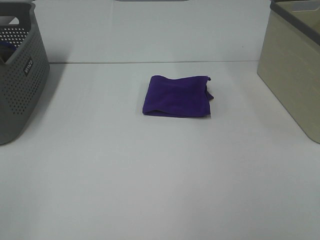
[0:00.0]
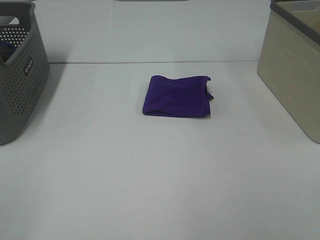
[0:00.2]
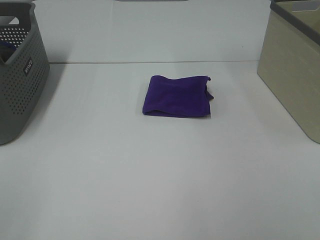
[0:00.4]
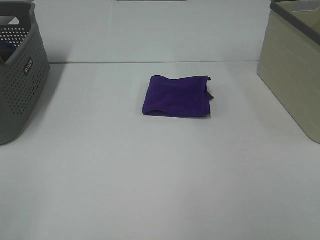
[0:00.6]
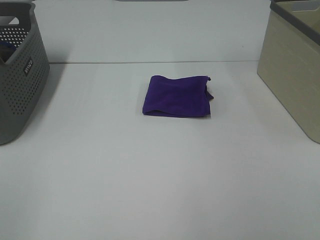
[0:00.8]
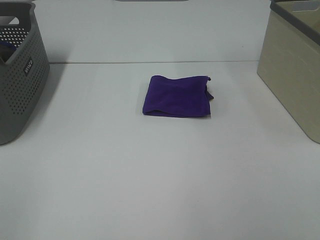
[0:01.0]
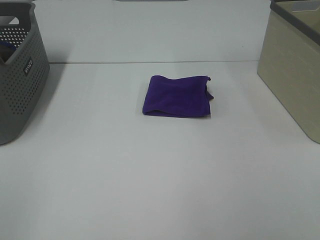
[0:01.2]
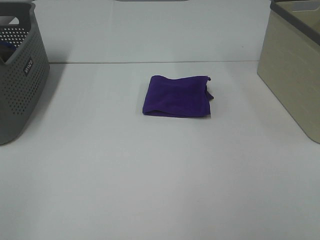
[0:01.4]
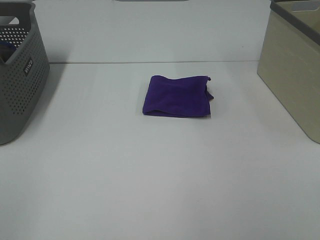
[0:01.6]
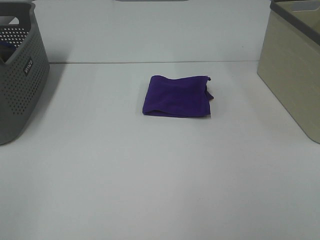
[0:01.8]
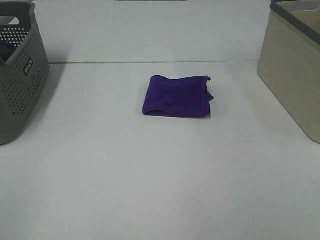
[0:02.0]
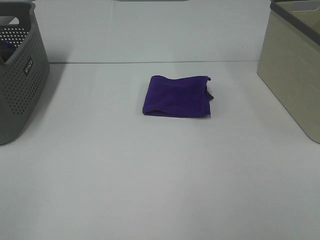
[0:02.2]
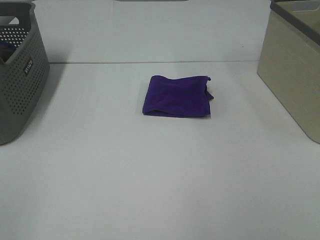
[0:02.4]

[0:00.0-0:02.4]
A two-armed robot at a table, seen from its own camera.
Task of the whole recording: Fold towels.
0:01.2 to 0:02.4: Both grippers stay put.

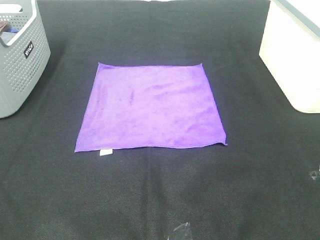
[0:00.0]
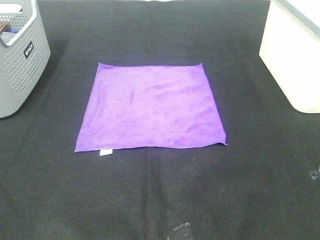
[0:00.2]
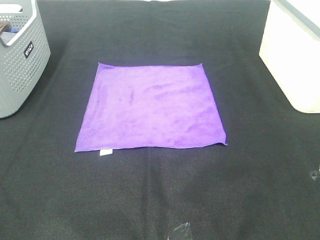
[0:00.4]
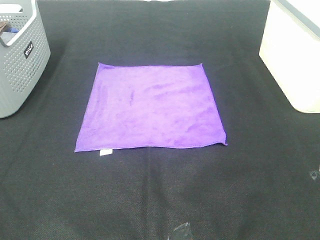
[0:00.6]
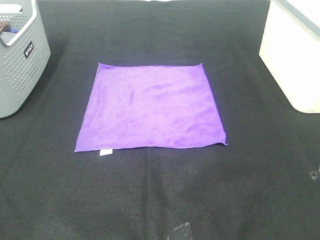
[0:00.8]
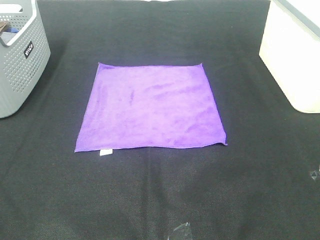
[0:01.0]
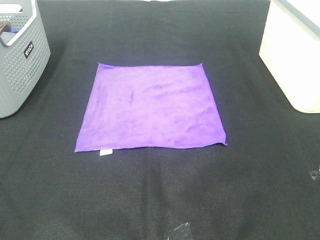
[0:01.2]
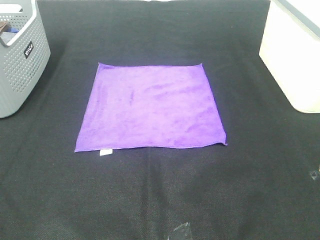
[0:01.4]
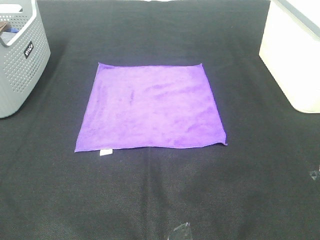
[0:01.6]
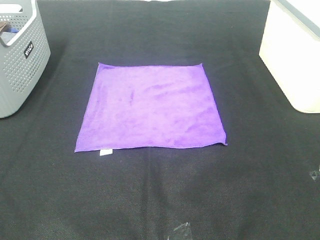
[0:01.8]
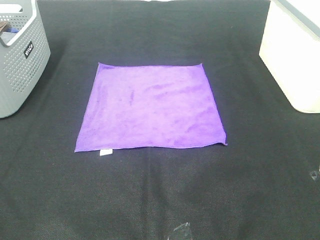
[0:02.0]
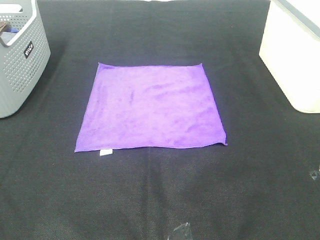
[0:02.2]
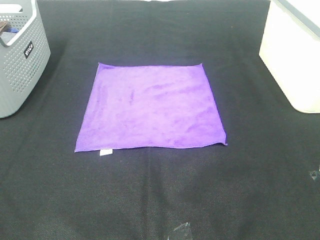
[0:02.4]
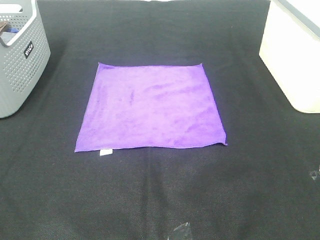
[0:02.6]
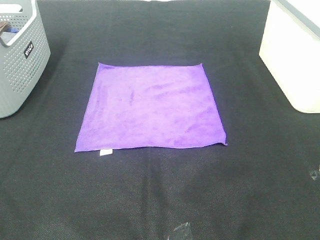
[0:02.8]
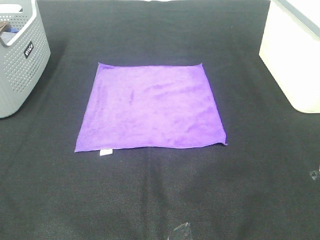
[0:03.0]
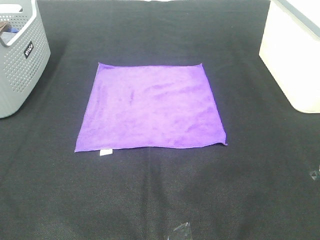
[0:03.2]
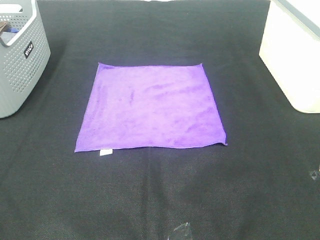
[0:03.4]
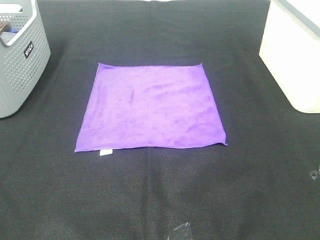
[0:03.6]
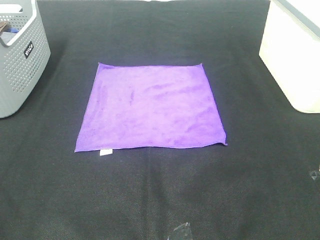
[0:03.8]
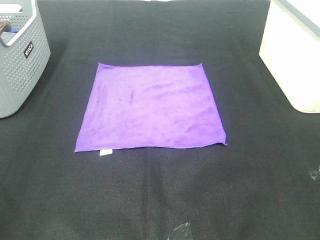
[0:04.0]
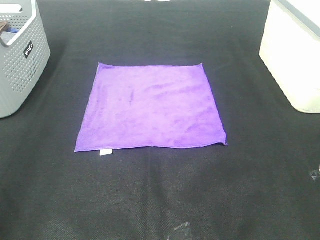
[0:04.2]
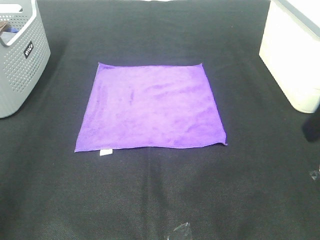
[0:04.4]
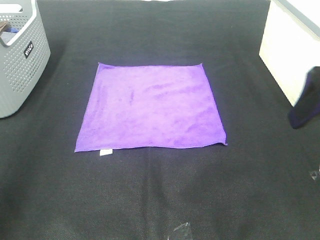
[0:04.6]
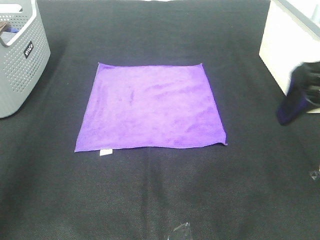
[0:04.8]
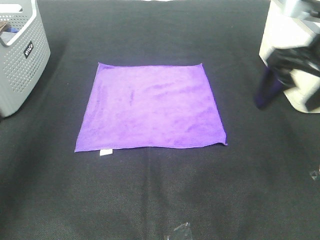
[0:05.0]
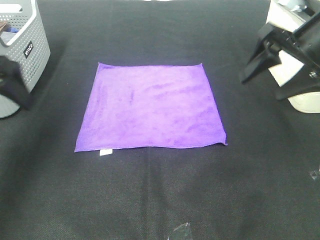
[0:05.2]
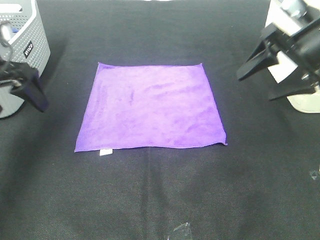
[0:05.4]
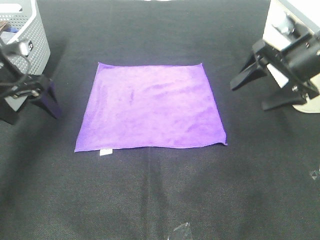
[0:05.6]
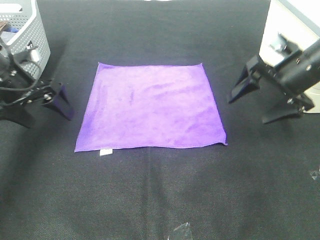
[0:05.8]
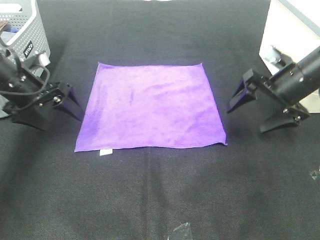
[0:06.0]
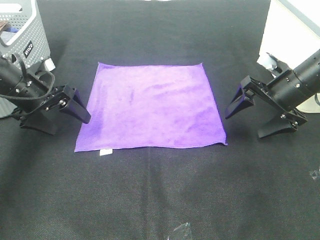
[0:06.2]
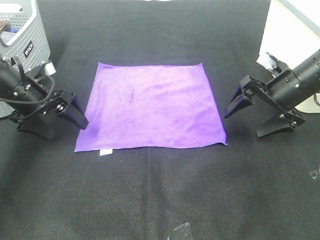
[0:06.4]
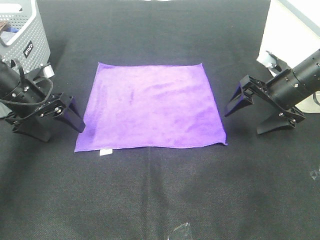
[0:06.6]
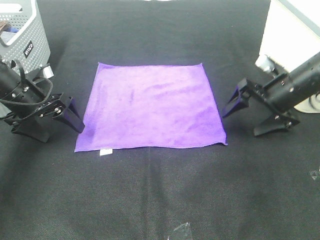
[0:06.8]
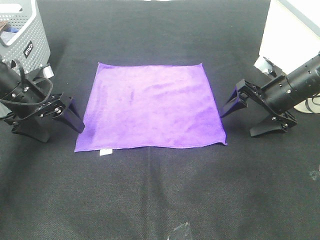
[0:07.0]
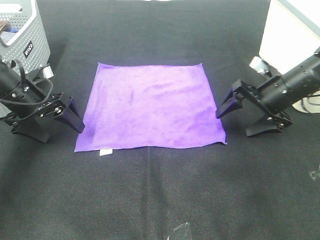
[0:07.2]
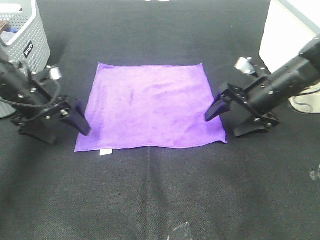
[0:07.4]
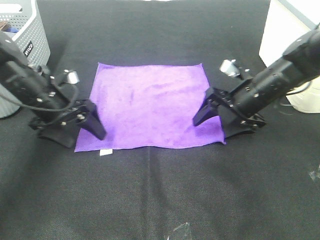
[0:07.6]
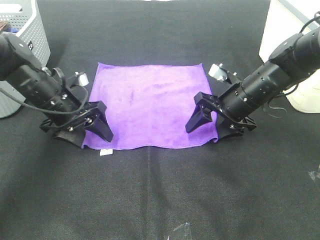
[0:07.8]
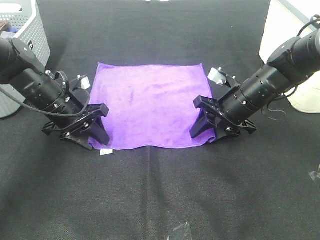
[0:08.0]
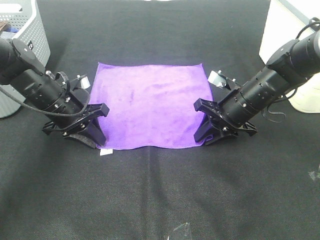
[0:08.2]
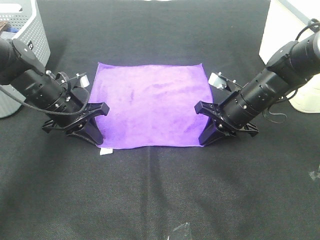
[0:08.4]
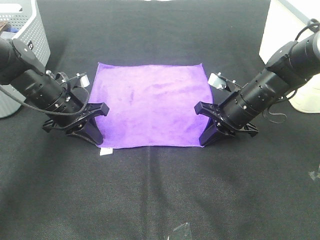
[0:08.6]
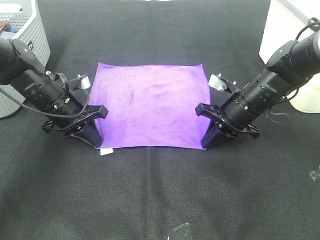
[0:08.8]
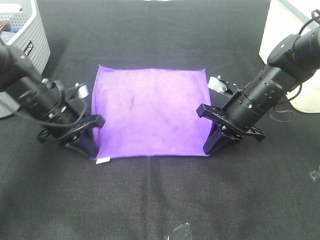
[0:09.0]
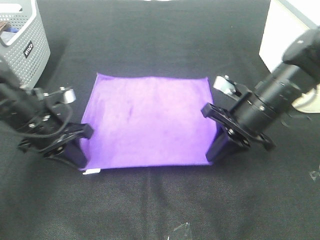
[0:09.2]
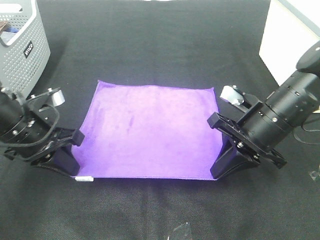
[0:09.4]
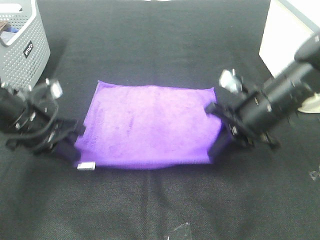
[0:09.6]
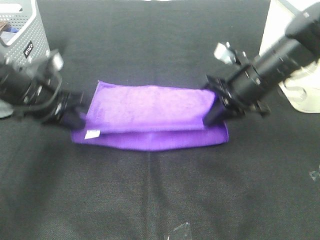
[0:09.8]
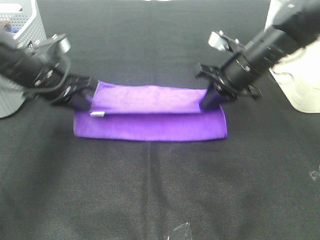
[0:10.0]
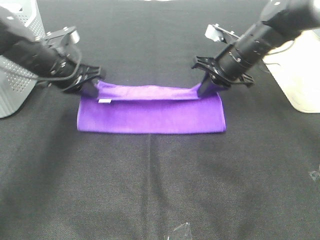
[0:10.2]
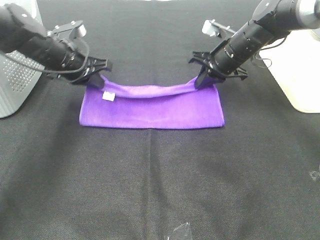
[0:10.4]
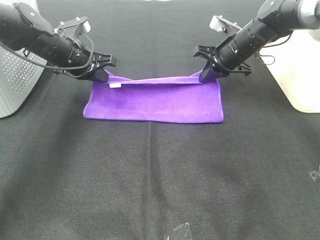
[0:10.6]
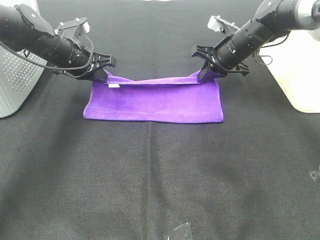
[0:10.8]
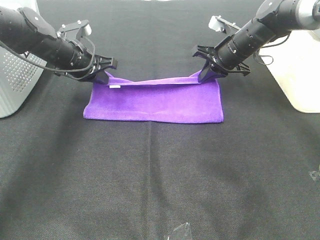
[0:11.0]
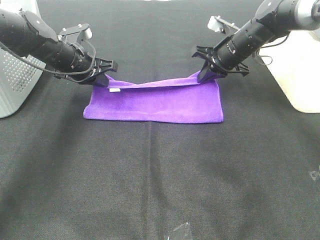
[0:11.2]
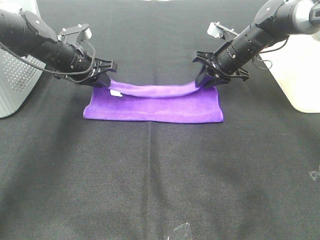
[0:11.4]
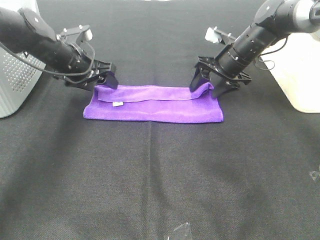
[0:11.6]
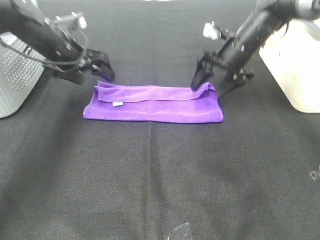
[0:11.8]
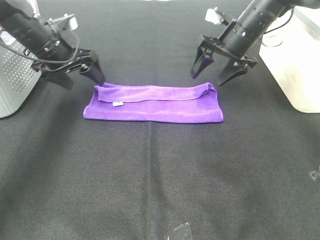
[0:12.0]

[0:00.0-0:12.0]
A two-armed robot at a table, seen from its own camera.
Task of the whole recording: Fold towels.
Step, 0:00.0 to 0:08.4: Left hand: grab the bottom left corner of purple towel.
Step, 0:00.0 to 0:08.4: Right hand: grab the bottom right corner of purple towel.
Step, 0:08.6 to 0:11.2: Left hand: fold the purple towel up.
Step, 0:08.6 to 0:11.2: Right hand: fold the purple towel up.
0:00.0 to 0:03.0: Both grippers stay put.
0:03.0 to 0:04.4: Both grippers travel together forward, roughly 15 cm.
0:04.4 to 0:06.0: The two grippers go approximately 30 cm forward and downward.
0:06.0 to 0:07.6: The left gripper travels to the right by some 5 cm, while the right gripper moves to the left, some 5 cm.
0:07.6 to 0:09.0: The left gripper closes up, while the right gripper closes its fingers.
0:09.0 to 0:10.4: The left gripper is displaced forward and upward by approximately 10 cm. Meanwhile the right gripper travels forward by some 15 cm.
0:10.4 to 0:12.0: The right gripper opens its fingers; the left gripper opens up.

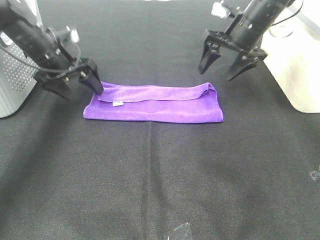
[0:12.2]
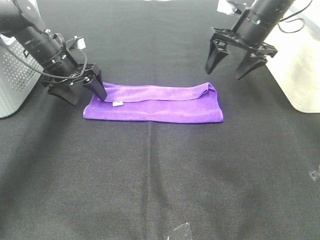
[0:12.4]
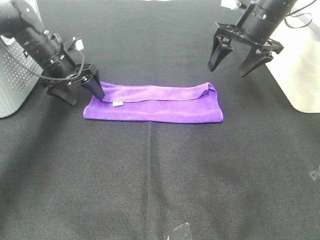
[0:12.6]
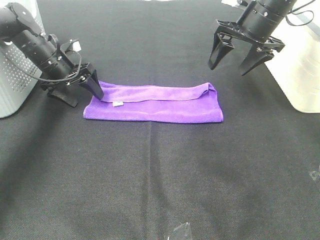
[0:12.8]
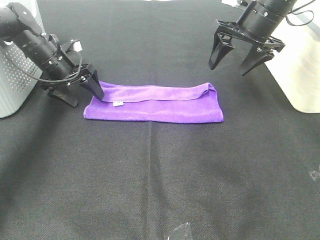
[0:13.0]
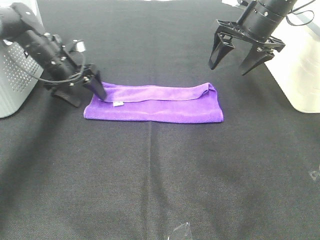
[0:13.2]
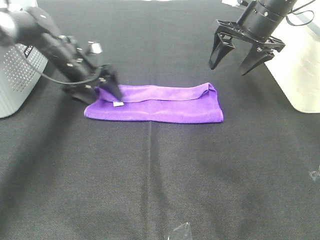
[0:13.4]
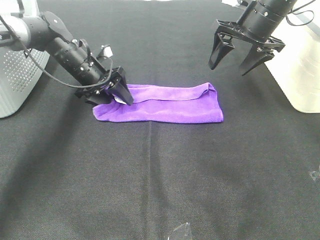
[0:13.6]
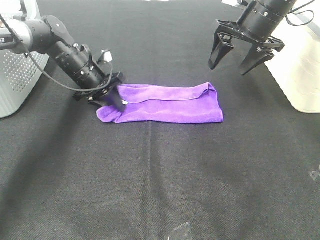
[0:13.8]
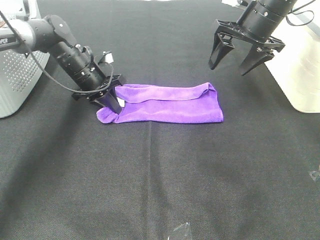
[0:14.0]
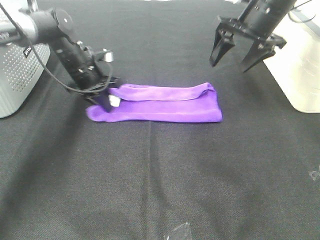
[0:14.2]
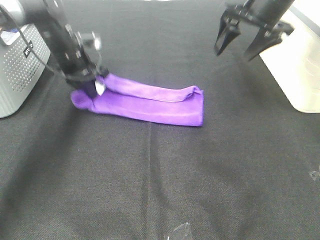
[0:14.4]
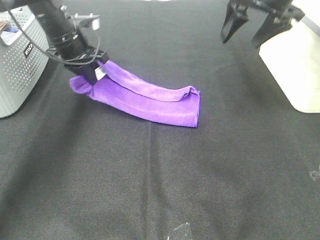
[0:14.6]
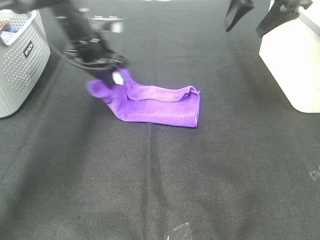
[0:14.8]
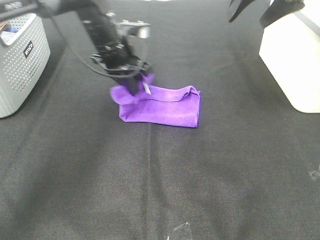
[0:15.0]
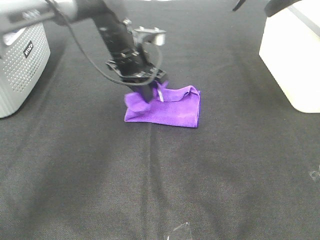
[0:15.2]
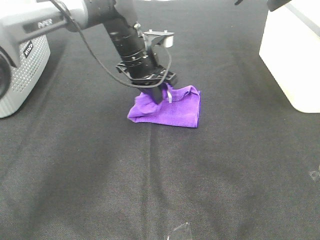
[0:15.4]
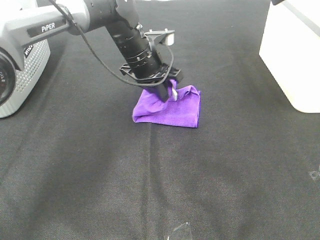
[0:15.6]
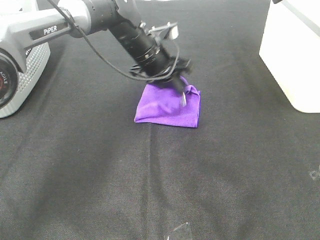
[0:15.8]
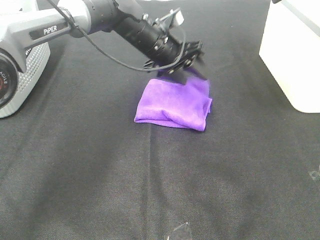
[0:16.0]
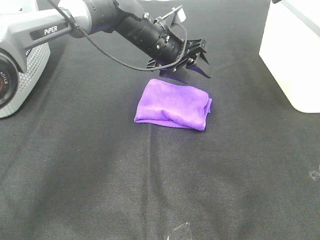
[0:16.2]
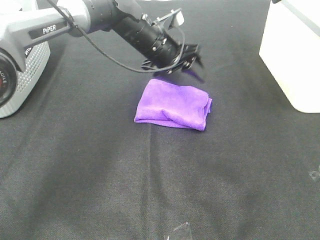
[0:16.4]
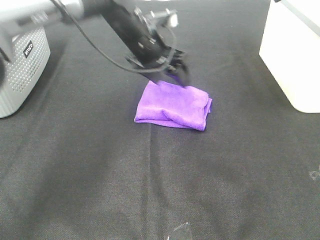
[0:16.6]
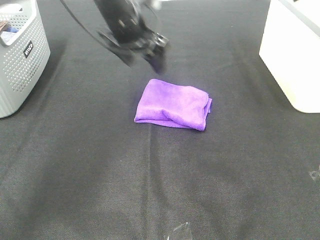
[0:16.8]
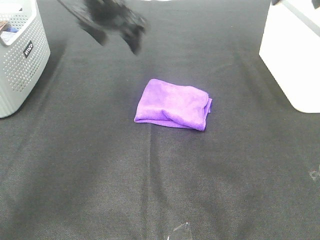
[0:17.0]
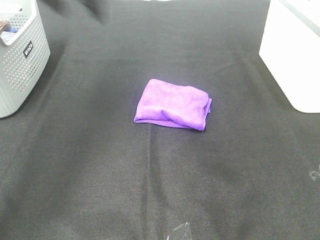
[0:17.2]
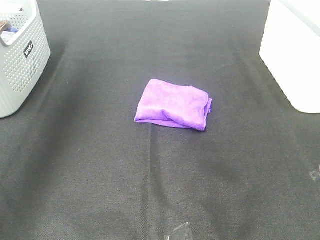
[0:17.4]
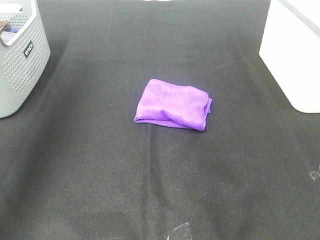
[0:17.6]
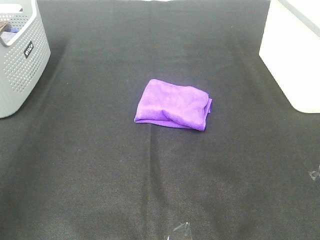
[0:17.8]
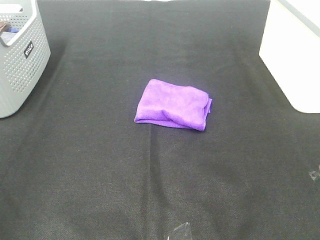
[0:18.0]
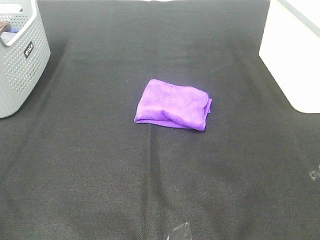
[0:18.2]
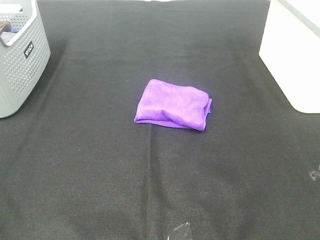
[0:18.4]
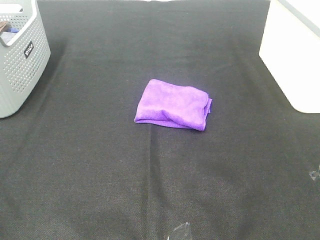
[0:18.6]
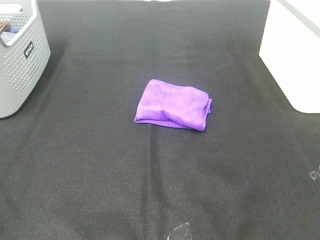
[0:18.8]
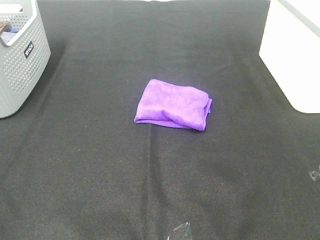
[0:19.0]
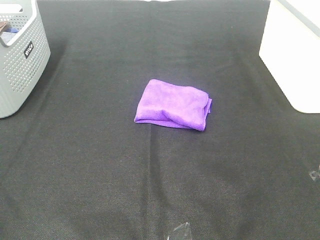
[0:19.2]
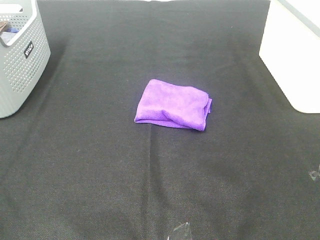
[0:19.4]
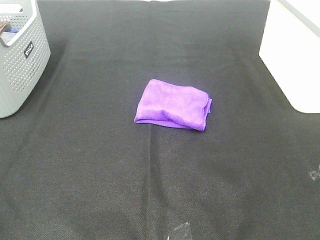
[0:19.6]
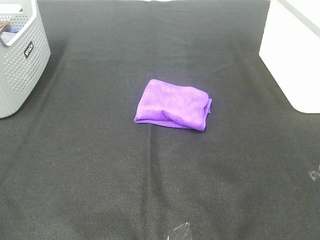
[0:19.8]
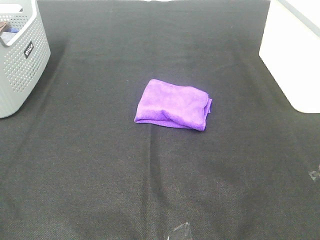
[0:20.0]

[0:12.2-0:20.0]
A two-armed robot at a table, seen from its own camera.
Task of the whole recording: Fold towels.
Step, 0:12.2 to 0:15.8: Left hand: fold the purple towel from left to right.
0:12.2 to 0:13.8: The left gripper is displaced downward and to the right by some 10 cm, and closes its fingers.
0:13.8 to 0:15.4: The right gripper heads upward and backward, covering roughly 15 cm, while the left gripper heads to the right and upward, covering roughly 15 cm.
0:15.4 to 0:16.8: The left gripper shifts about 10 cm upward, and opens its fingers.
0:16.8 to 0:18.4: The right gripper shifts some 35 cm backward. Meanwhile the left gripper heads backward and to the left, covering some 50 cm.
